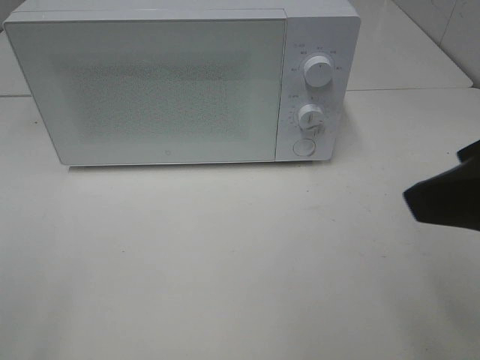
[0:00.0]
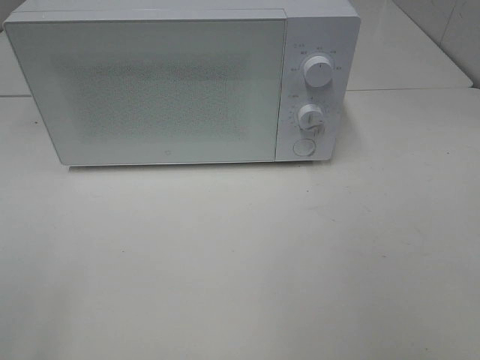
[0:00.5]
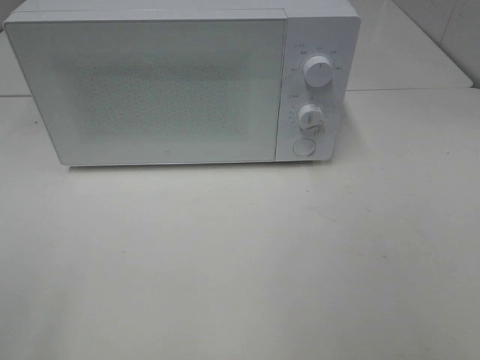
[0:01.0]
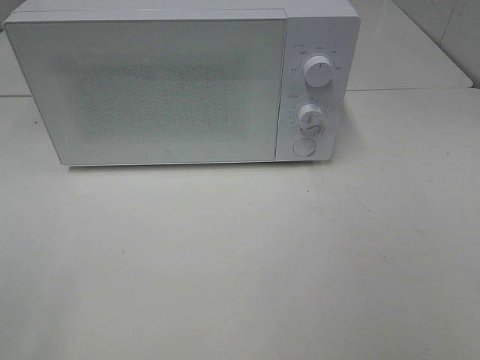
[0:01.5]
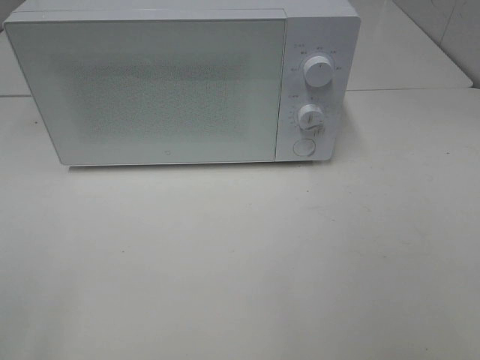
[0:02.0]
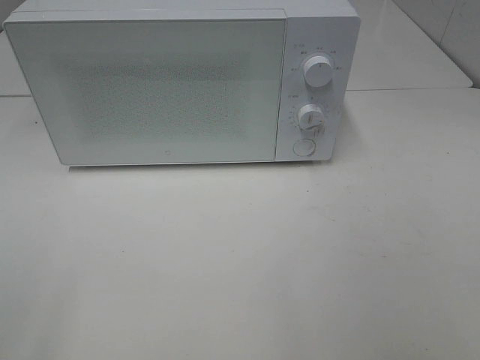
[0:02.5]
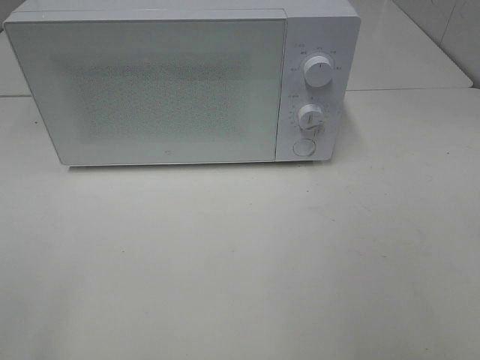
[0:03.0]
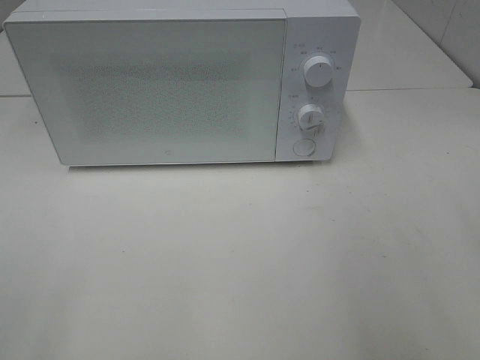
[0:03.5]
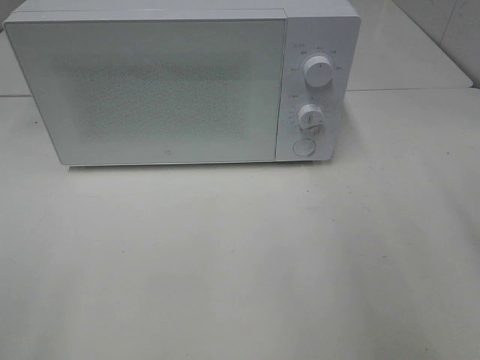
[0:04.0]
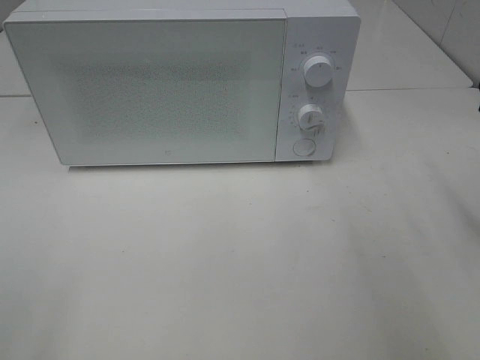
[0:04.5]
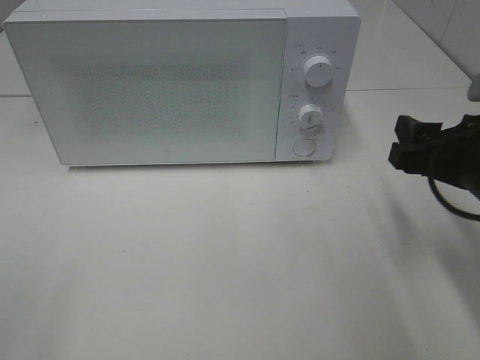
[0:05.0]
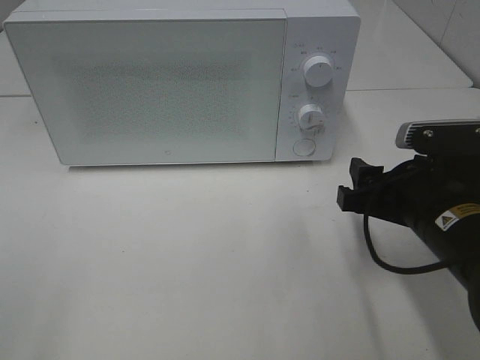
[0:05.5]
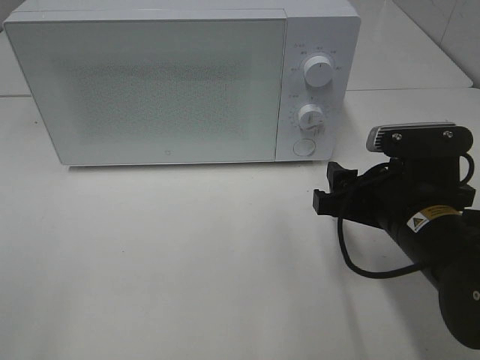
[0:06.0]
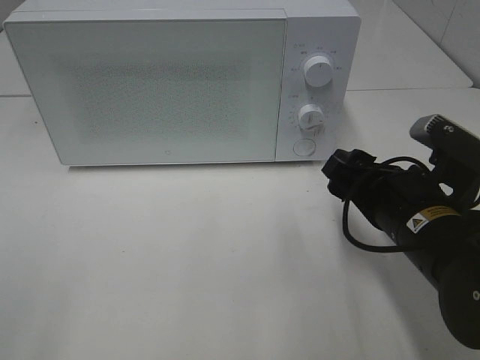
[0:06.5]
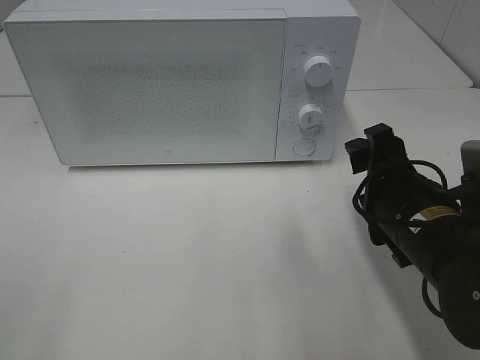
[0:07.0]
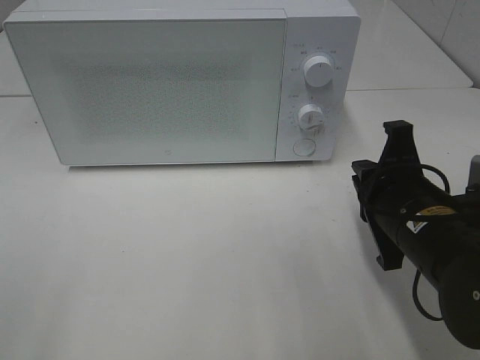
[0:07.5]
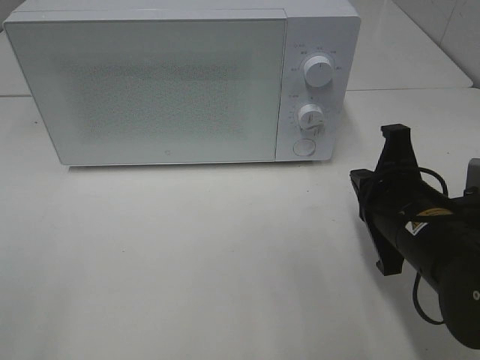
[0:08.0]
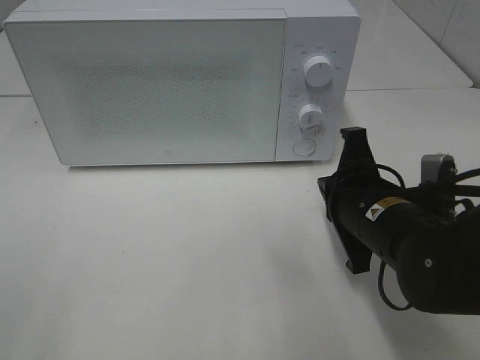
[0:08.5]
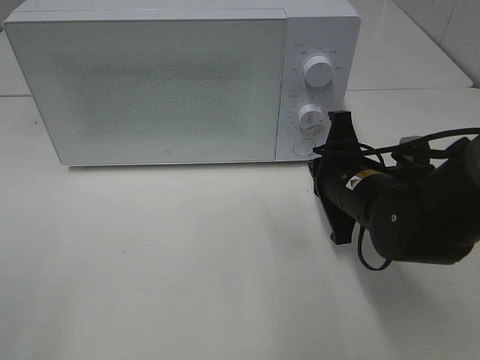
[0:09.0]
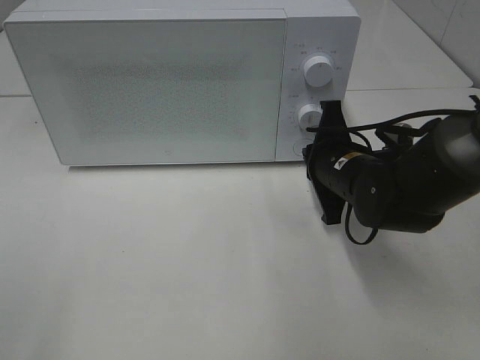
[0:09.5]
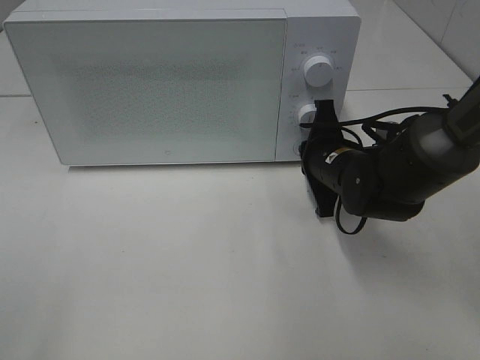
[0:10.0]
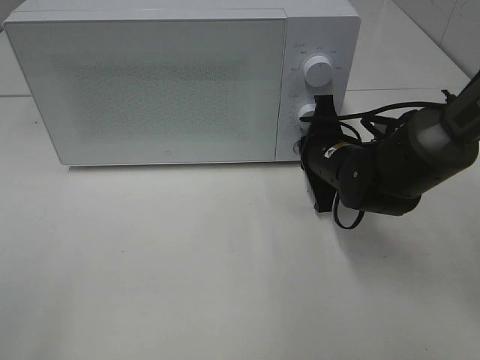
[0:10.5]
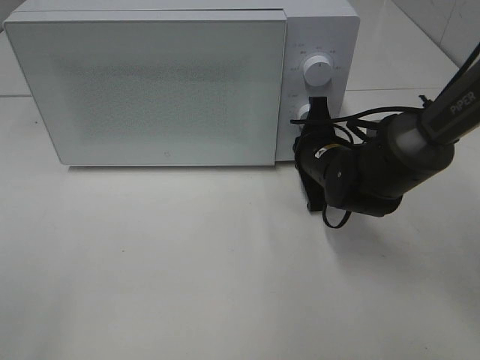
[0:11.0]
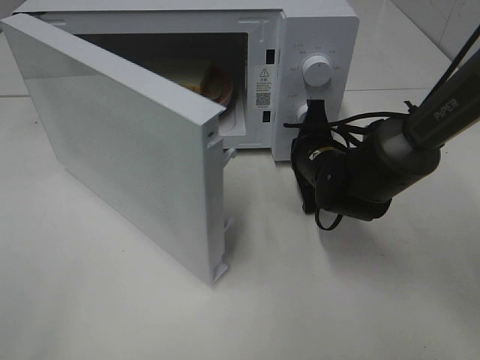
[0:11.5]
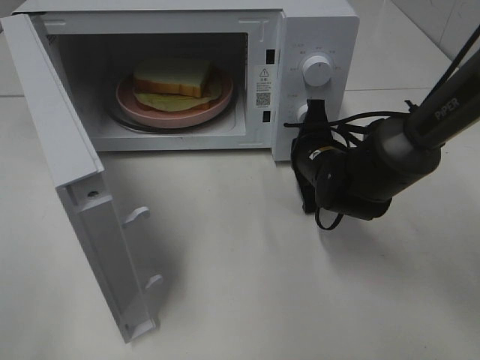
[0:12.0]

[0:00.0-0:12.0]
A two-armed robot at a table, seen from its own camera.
Task of the whole recording: Heat Sandwich.
0:00.0 to 0:02.0: The right gripper goes approximately 15 cm backward and to the right.
0:04.0 to 0:06.0: The right gripper moves downward and to the left, about 20 cm.
0:06.0 to 0:08.0: The right gripper closes up.
0:08.0 to 0:10.0: The right gripper heads forward, covering roughly 15 cm.

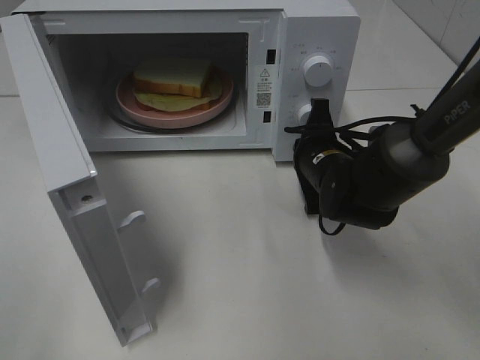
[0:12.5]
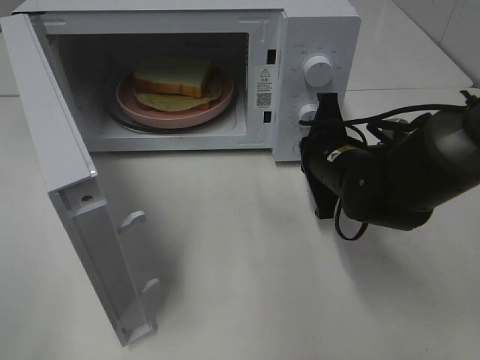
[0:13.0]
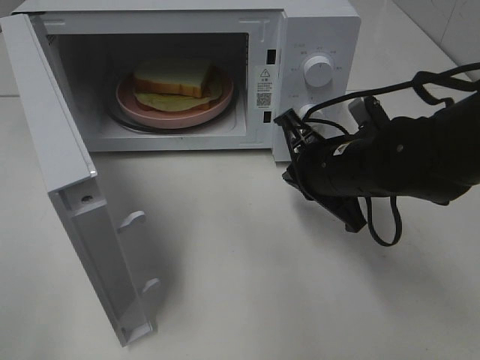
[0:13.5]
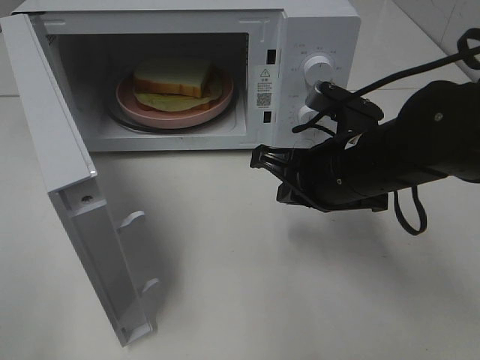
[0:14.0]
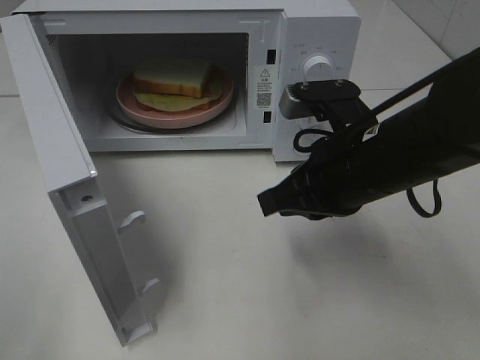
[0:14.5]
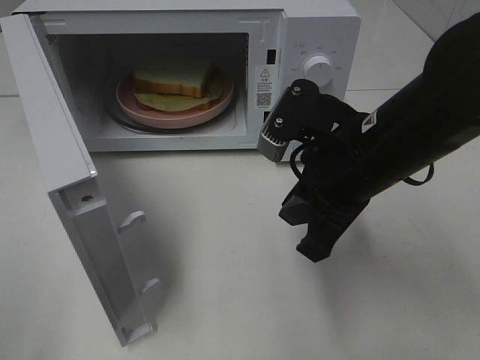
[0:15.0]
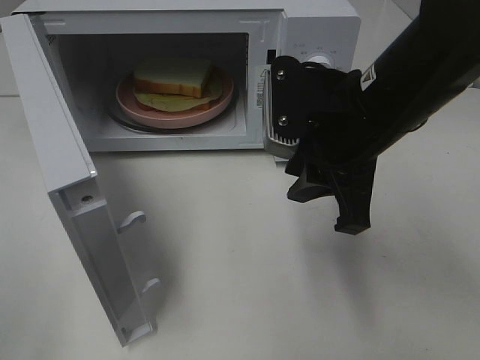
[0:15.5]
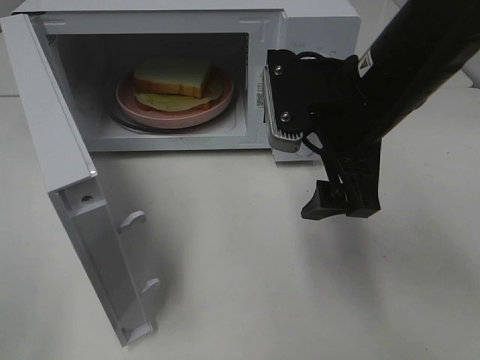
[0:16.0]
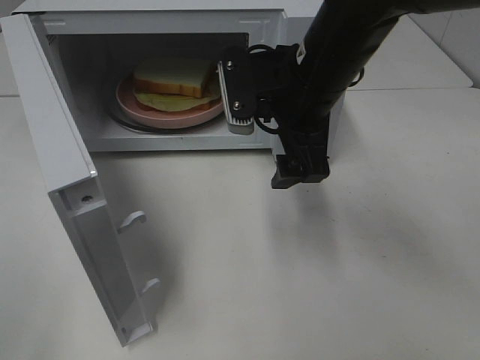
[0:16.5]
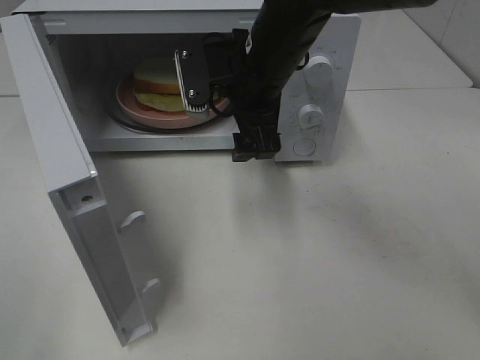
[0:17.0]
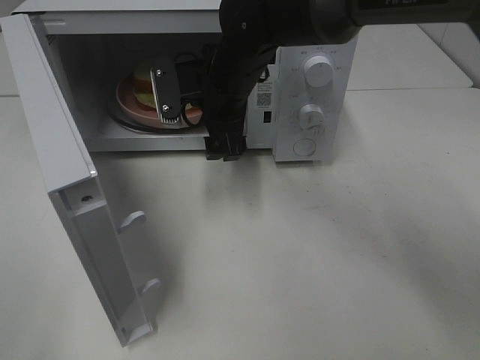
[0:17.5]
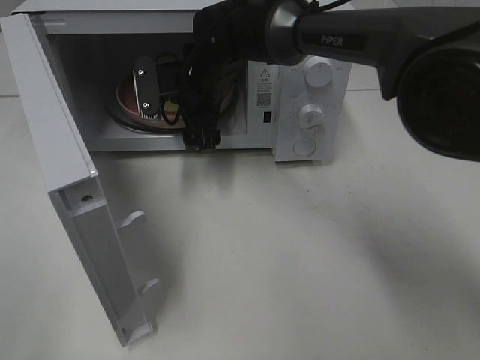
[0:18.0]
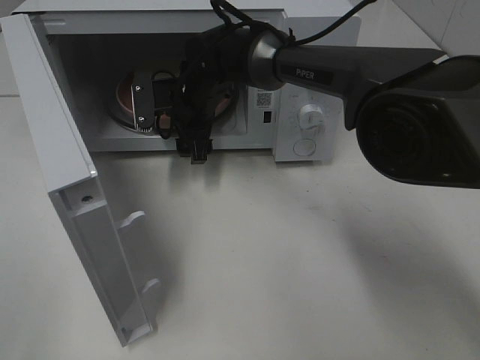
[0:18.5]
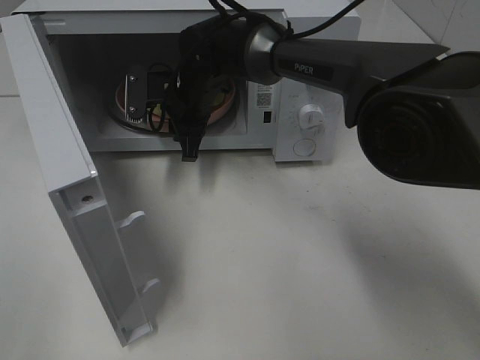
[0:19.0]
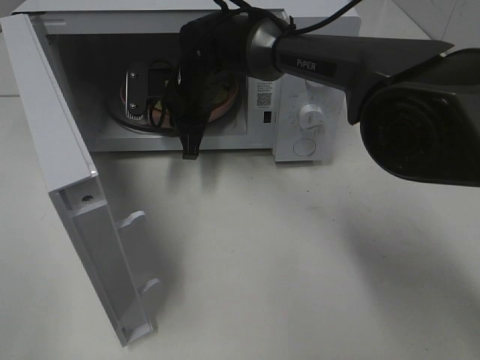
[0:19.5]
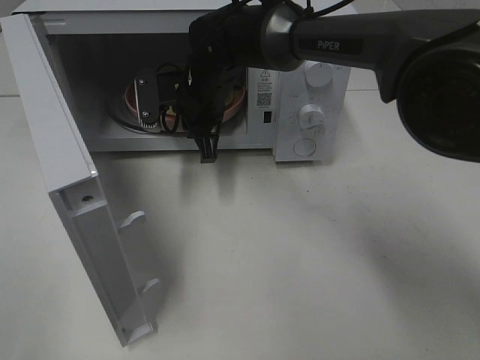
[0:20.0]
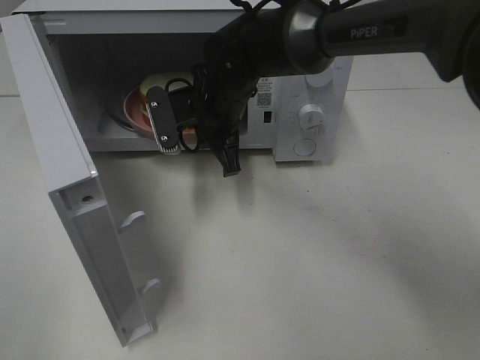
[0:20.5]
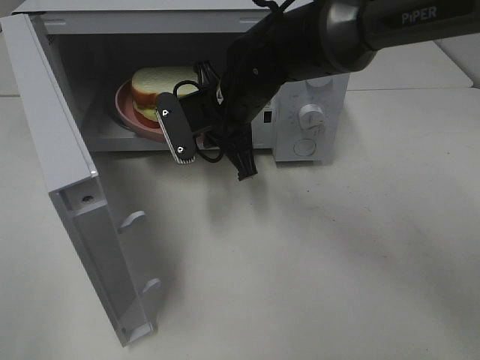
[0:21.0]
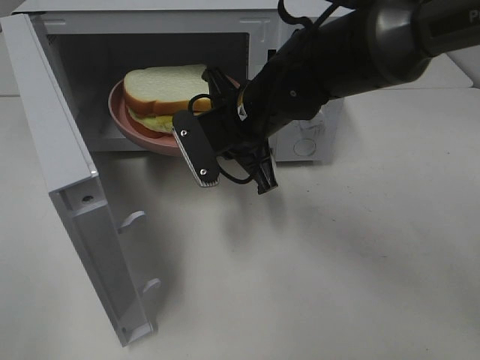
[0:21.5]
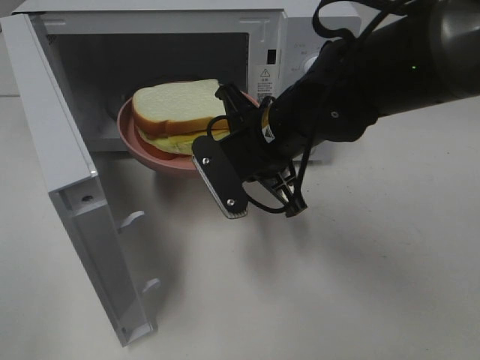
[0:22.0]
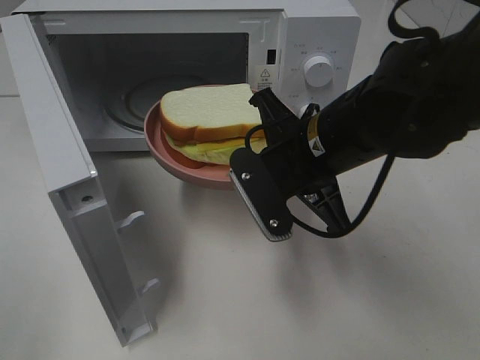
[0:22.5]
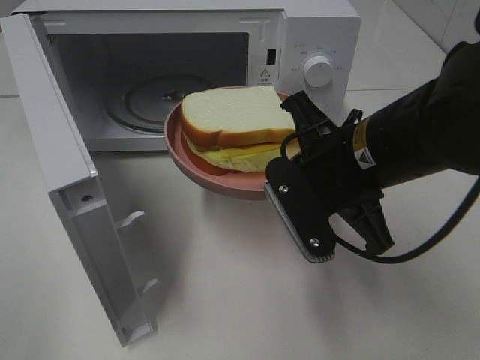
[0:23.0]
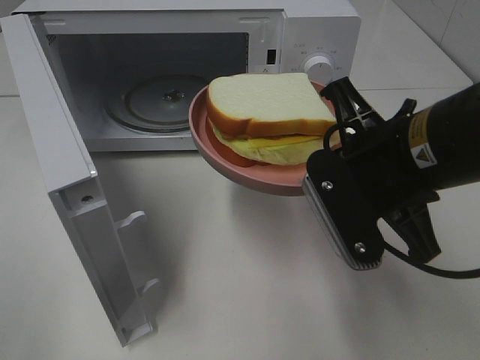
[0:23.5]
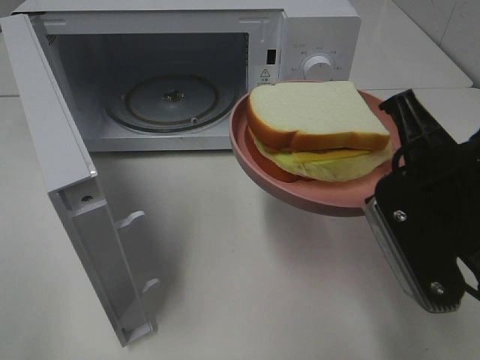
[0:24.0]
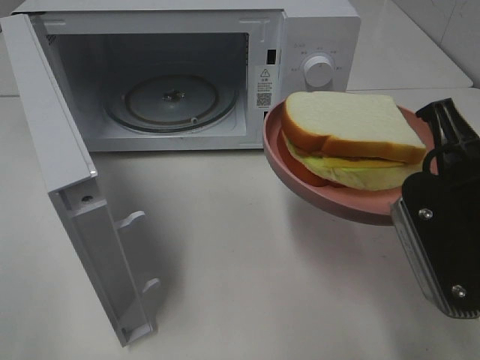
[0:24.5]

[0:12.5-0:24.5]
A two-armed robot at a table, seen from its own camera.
Task of the whole recording: Heat Sandwich.
Step, 0:13.5 to 0:19.0: Right hand: grab the plate with the sandwich.
0:12.5 to 0:14.5: The right gripper is displaced backward and upward by approximately 15 cm.
0:14.5 to 0:16.5: The right gripper travels forward and to the left by roughly 10 cm, and opens up.
0:16.5 to 0:18.5: The right gripper is displaced forward, to the left and downward by about 20 cm.
0:18.5 to 0:20.5: The right gripper travels backward by some 5 cm, and closes.
0:20.5 to 0:22.5: The right gripper heads backward and to the right, covering roughly 15 cm.
0:22.5 to 0:24.5: The right gripper heads backward and to the right, covering approximately 15 cm.

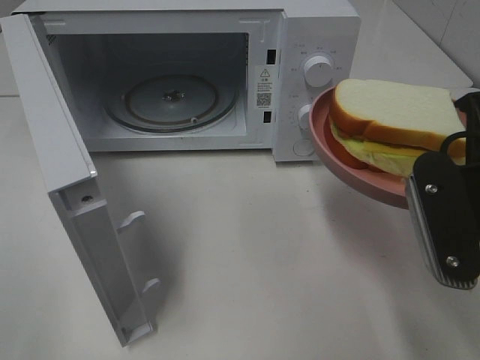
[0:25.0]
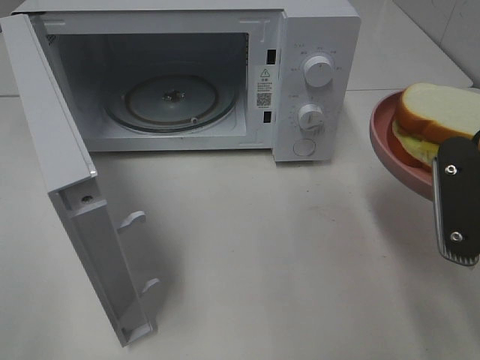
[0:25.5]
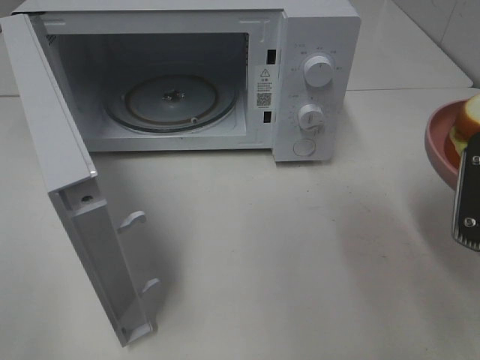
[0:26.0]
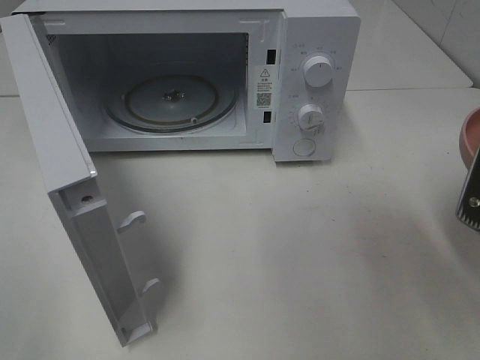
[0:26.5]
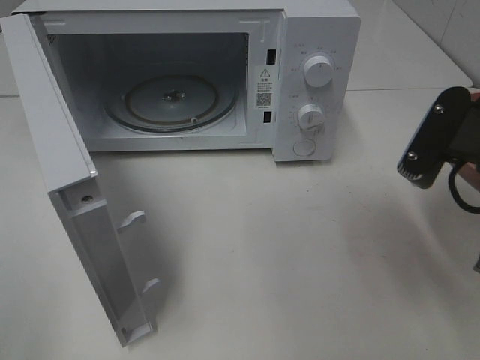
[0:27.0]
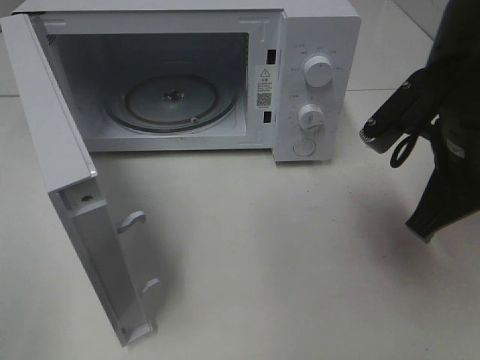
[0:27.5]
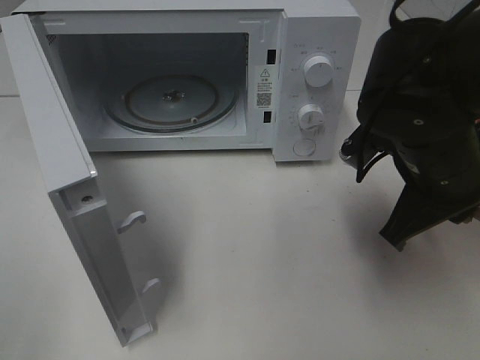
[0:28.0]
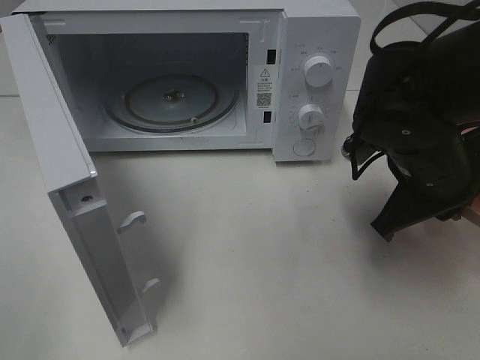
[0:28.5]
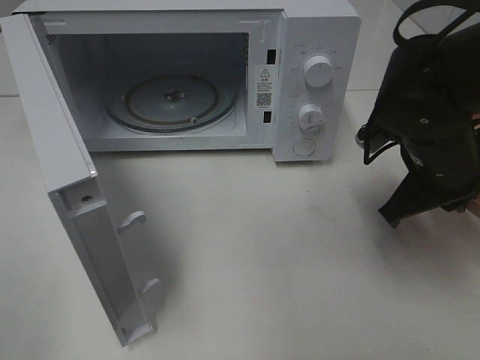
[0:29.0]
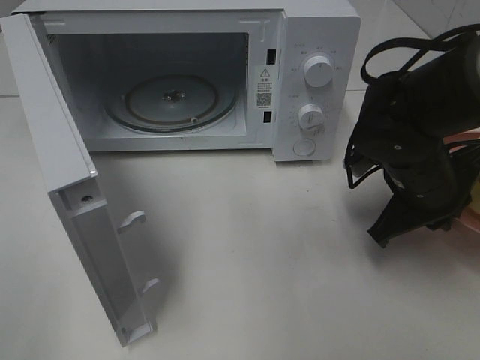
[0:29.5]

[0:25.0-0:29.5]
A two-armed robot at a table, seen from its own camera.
Task of the whole recording: Heat Sandwich.
0:27.0 to 0:29.5: The right gripper travels downward and forward by some 15 cm.
